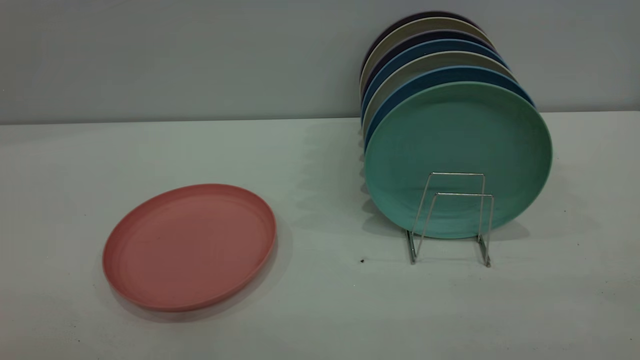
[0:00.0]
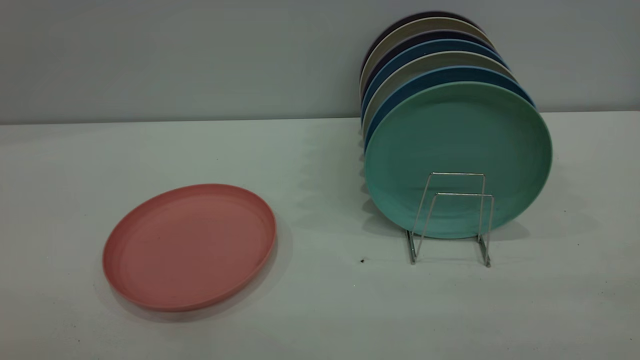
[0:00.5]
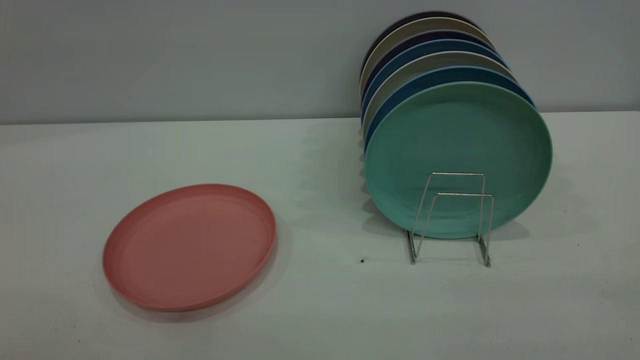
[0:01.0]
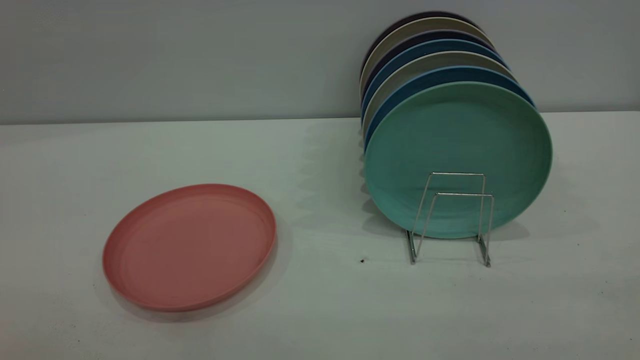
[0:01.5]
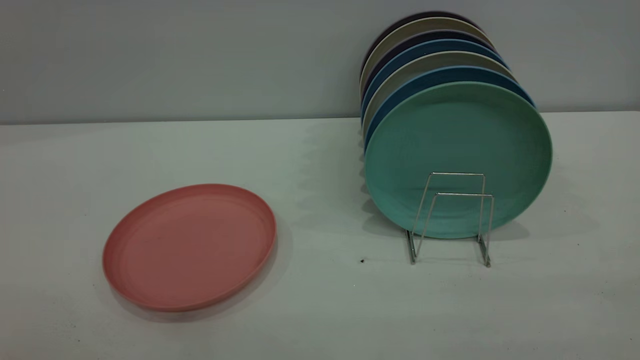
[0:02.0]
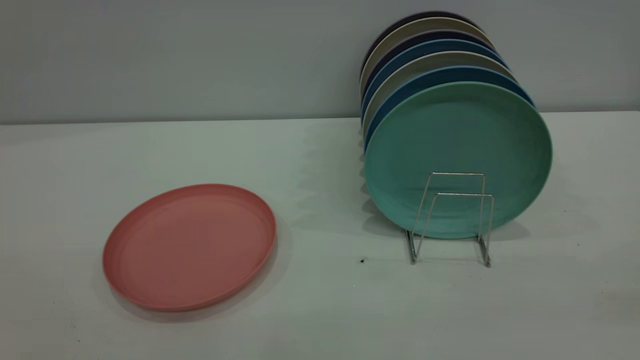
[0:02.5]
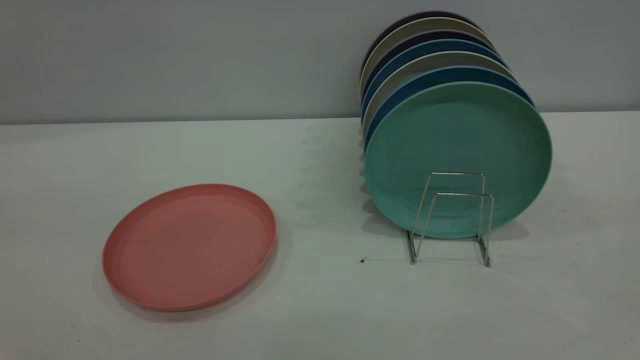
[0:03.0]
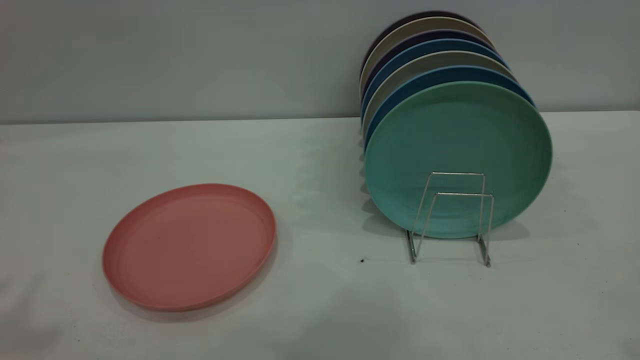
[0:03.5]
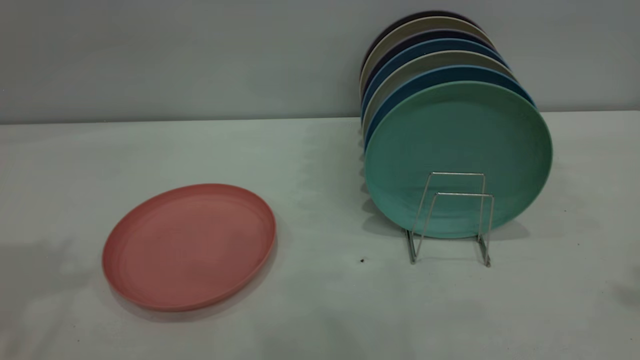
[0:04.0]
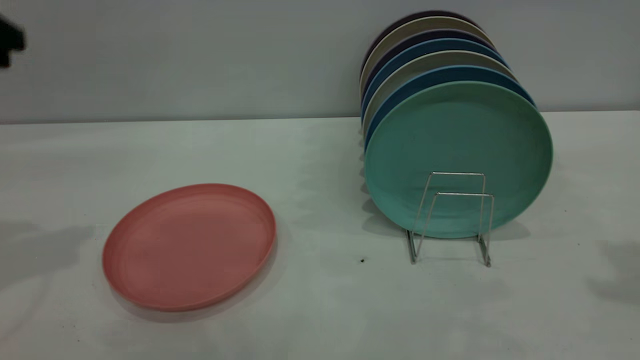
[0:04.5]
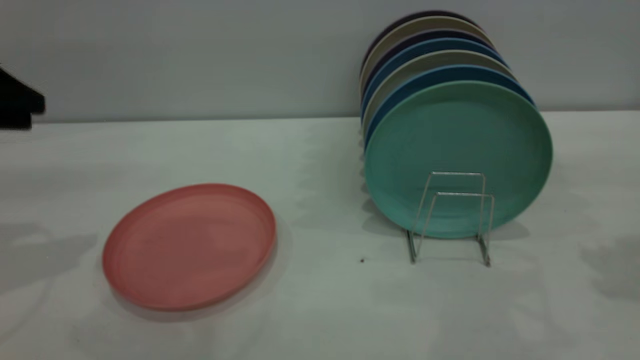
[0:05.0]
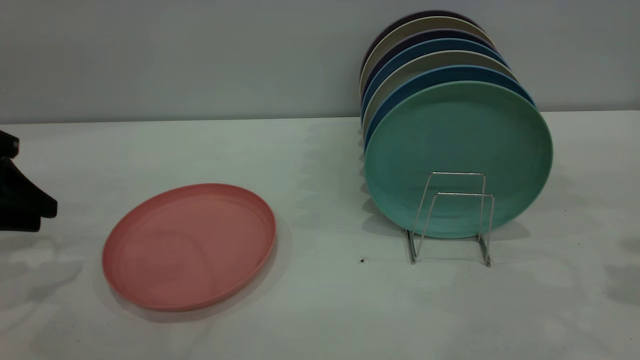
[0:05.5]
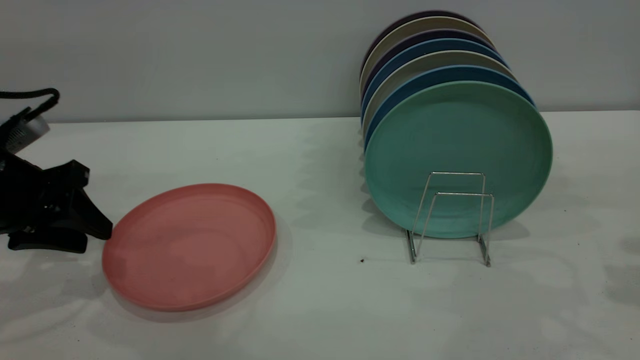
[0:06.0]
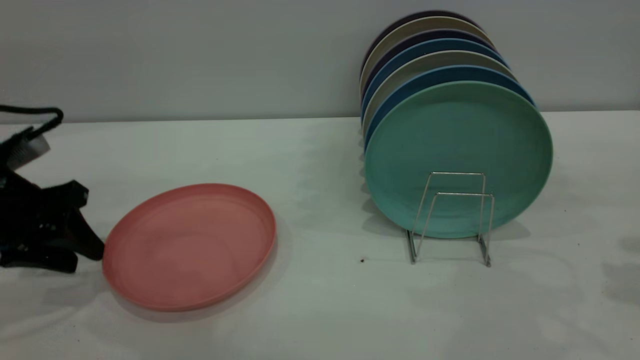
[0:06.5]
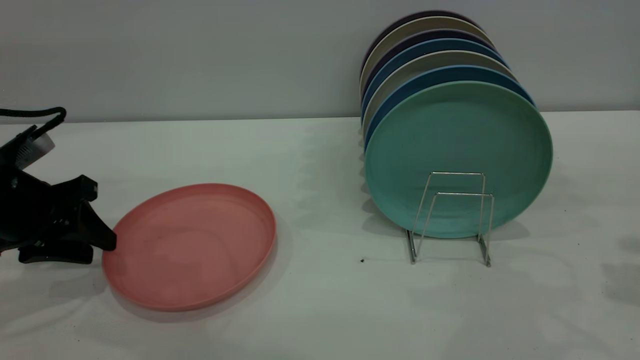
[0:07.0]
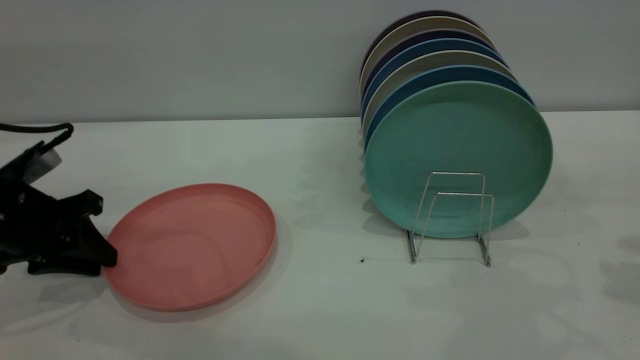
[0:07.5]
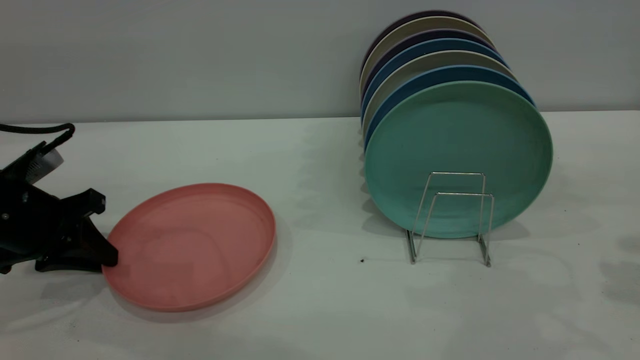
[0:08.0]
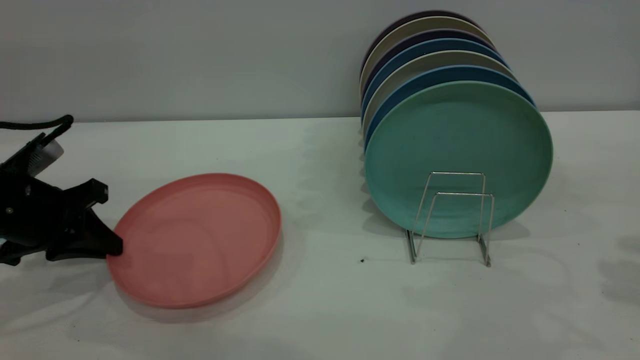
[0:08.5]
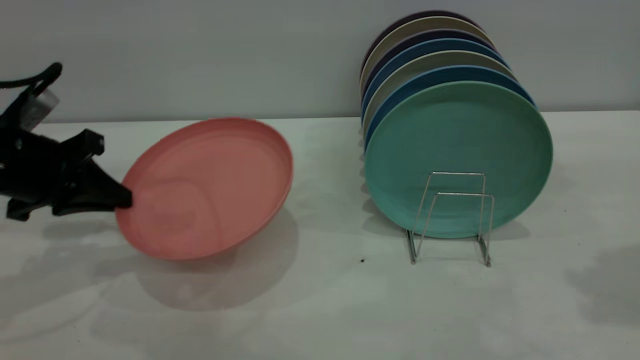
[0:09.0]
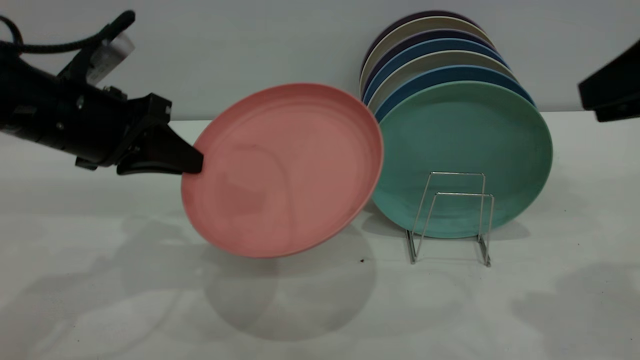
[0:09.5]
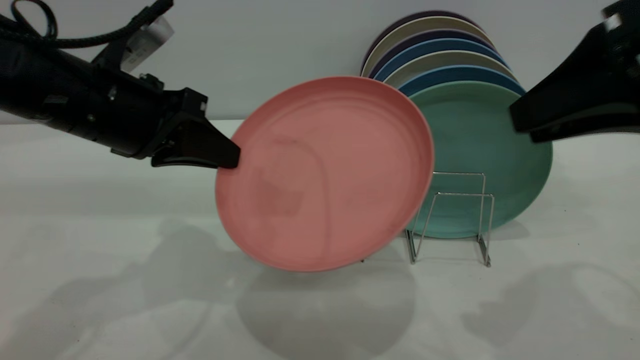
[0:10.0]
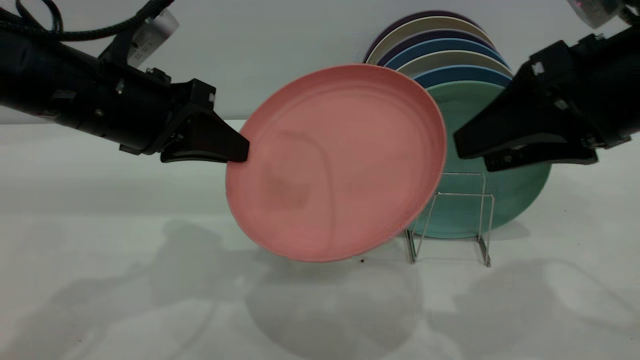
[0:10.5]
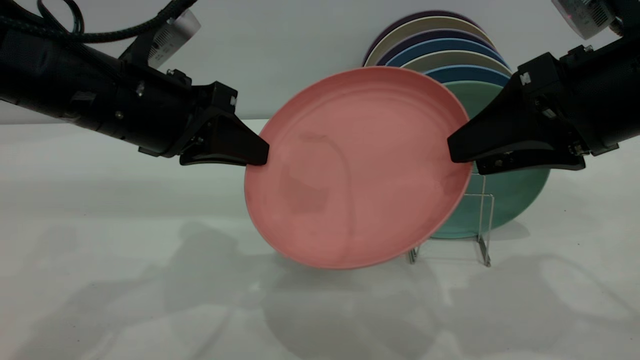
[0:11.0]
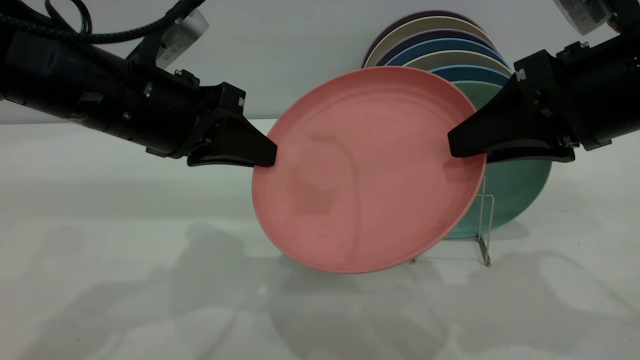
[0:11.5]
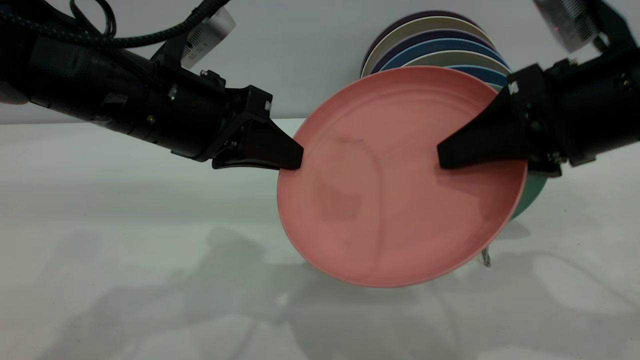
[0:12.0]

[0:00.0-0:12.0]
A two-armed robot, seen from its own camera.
Task of the whole recording: put the plate on the plate rack.
Step, 0:00.0 to 0:08.5: Pick up the plate with the left gripper.
0:00.0 to 0:02.0: Both grippers stay about where they are.
0:04.0 to 0:06.0: The left gripper moves downward, approximately 25 cm.
0:06.0 to 0:08.0: The left gripper closes up.
0:08.0 to 0:10.0: The right gripper goes some 15 cm to the left, while the left gripper goes approximately 15 cm to the right and upward.
0:10.0 to 0:12.0: The right gripper moves downward, some 5 cm, and opens, then closes once more; the left gripper heads to the right, covering about 5 cm.

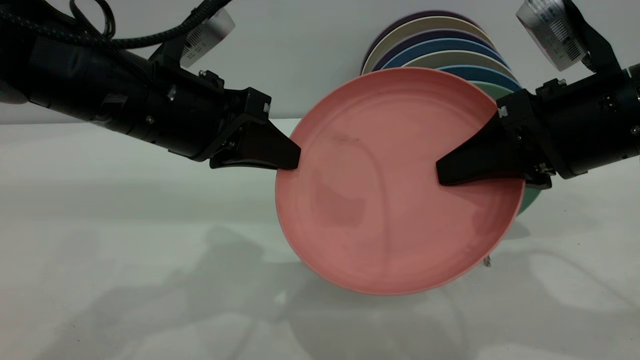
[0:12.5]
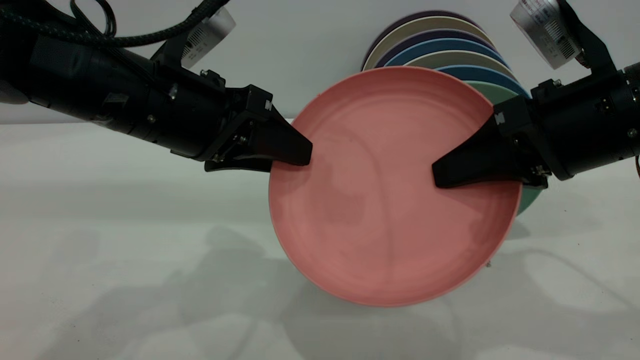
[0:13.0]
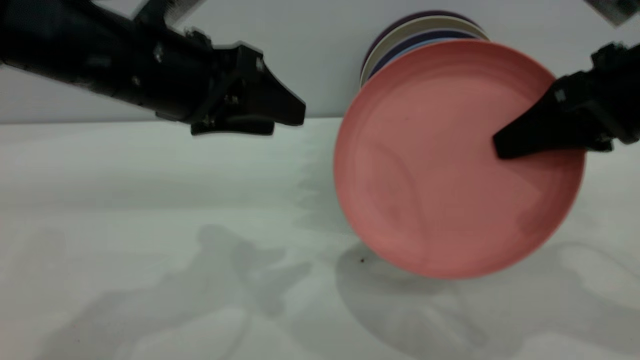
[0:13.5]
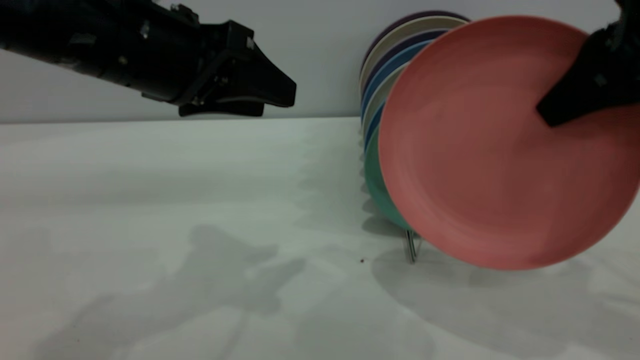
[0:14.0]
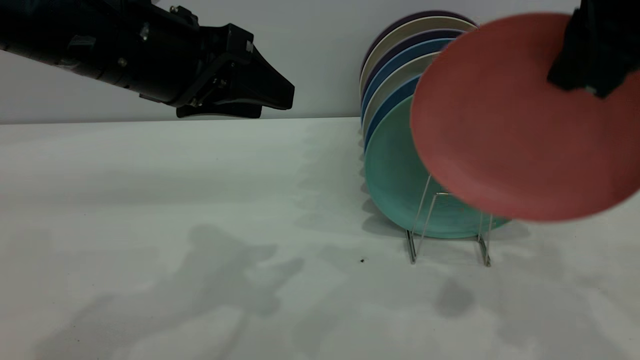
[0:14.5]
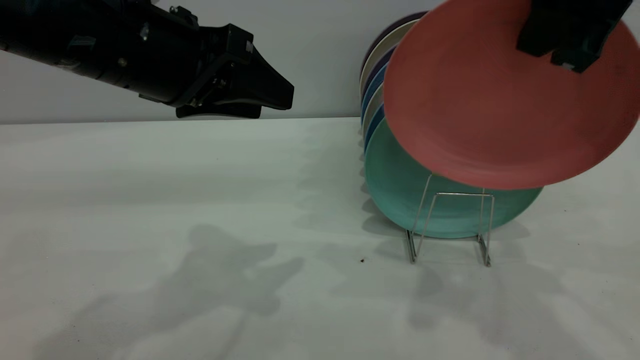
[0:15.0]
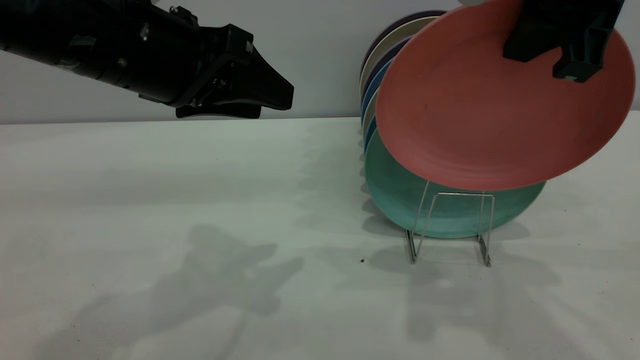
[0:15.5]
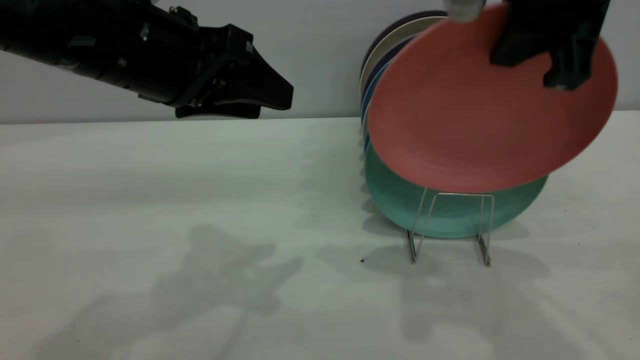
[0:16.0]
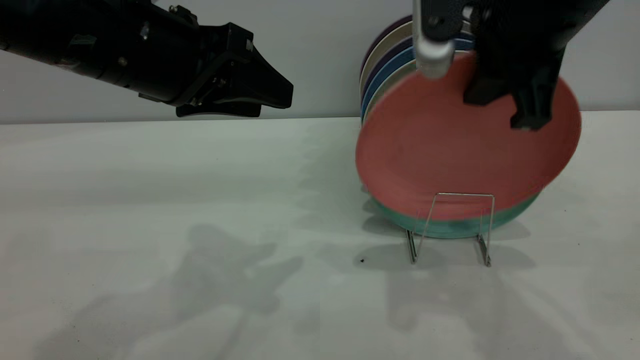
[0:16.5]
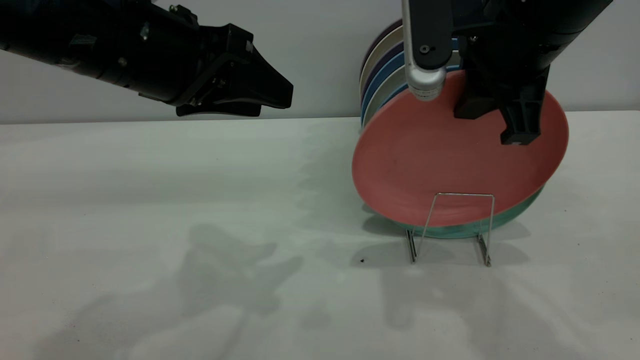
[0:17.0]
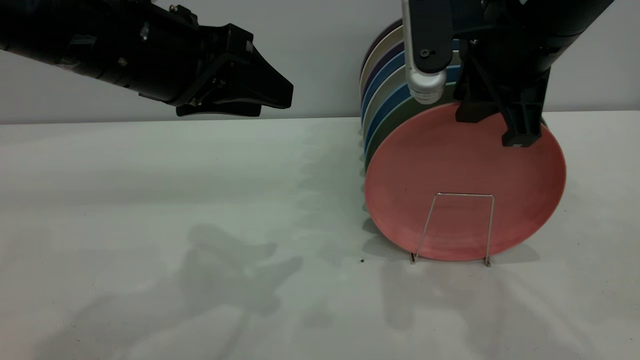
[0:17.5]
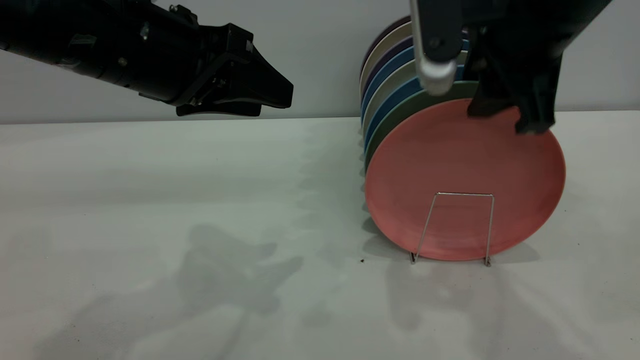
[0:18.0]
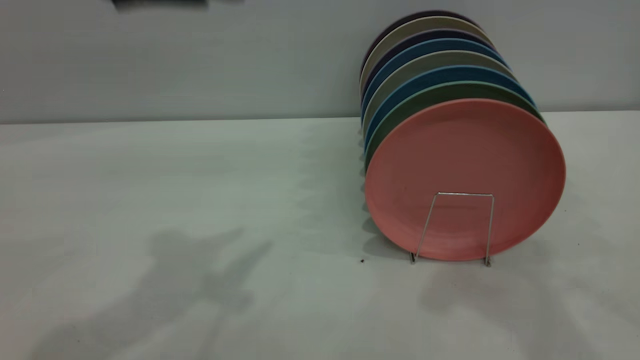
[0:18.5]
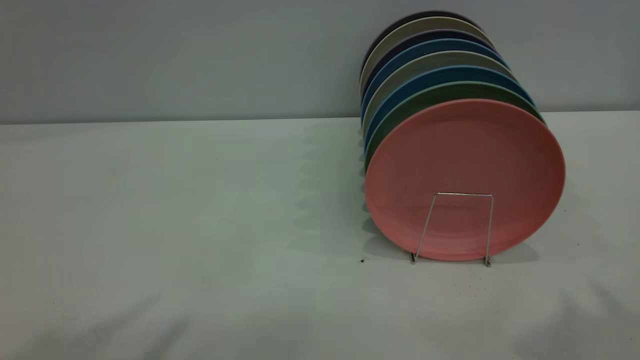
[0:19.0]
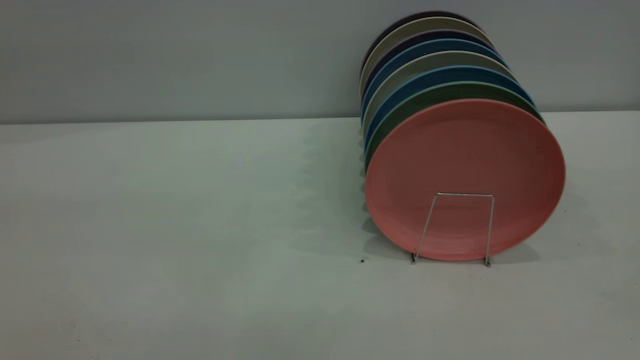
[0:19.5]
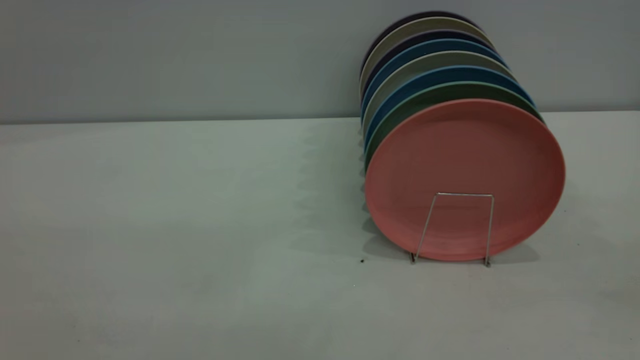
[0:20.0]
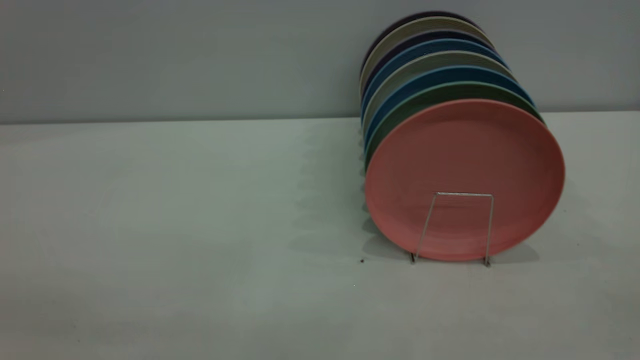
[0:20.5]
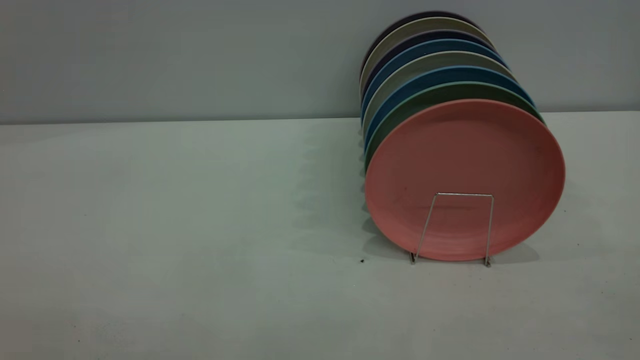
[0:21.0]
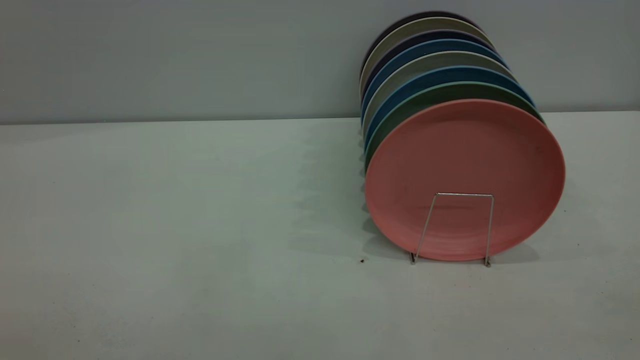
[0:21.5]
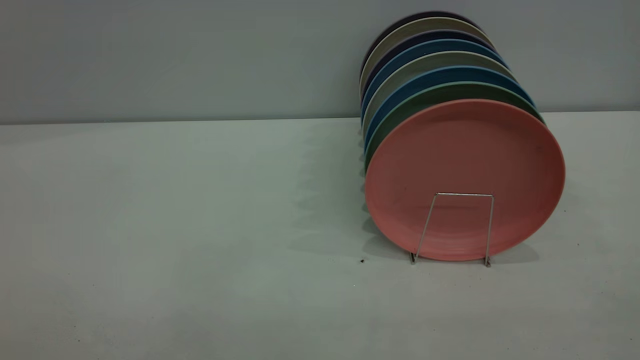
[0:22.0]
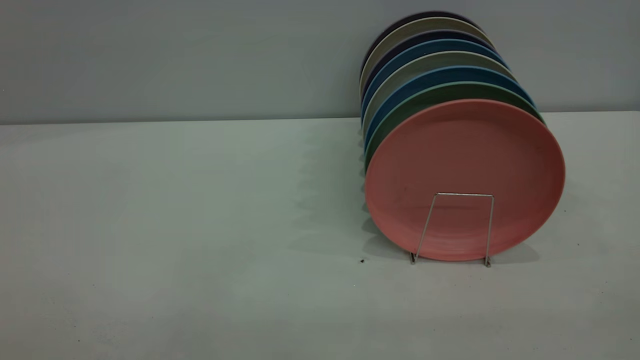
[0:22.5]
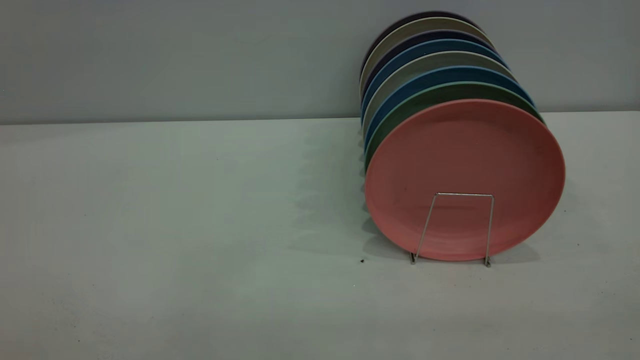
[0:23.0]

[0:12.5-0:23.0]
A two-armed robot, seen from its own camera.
Task of the whole recording: put the plate on the plate rack.
Step, 0:13.5 to 0:18.0: Place the plate on the shelf.
0:12.5 to 0:14.5: The left gripper opens up. Meanwhile the right gripper moves upward, roughly 10 cm.
0:14.5 to 0:16.5: The right gripper travels to the left by roughly 5 cm.
0:16.5 to 0:19.0: The left gripper shifts about 25 cm upward and backward. The right gripper is displaced upward, backward and to the right by about 25 cm, and opens up.
